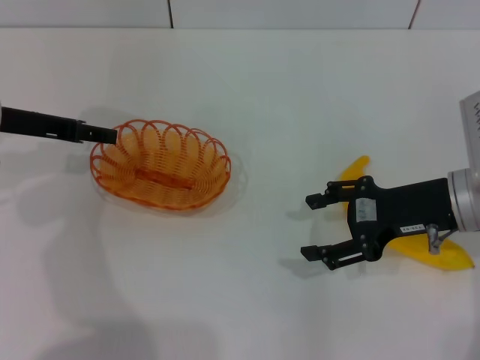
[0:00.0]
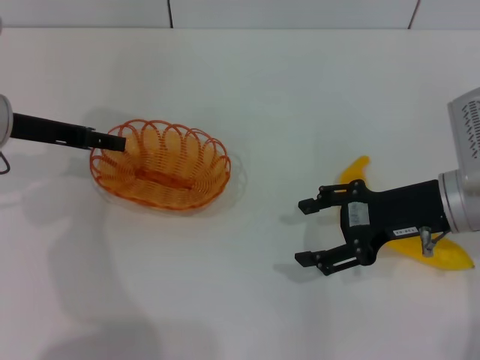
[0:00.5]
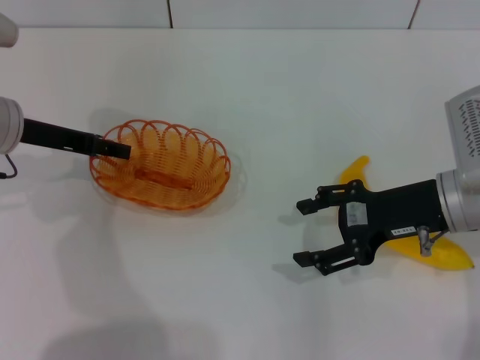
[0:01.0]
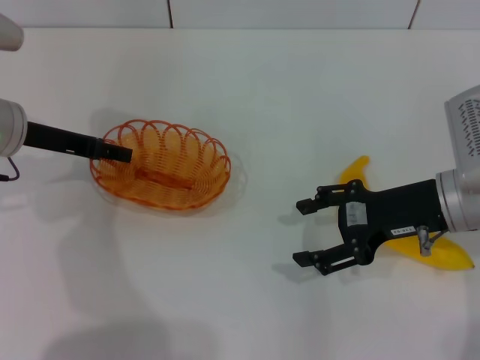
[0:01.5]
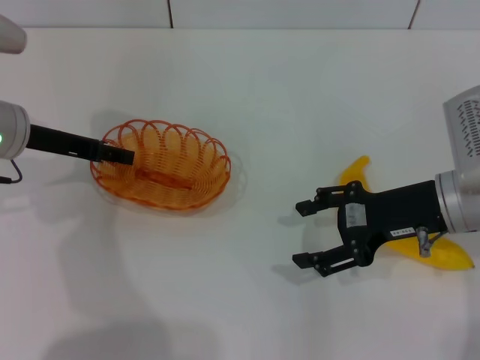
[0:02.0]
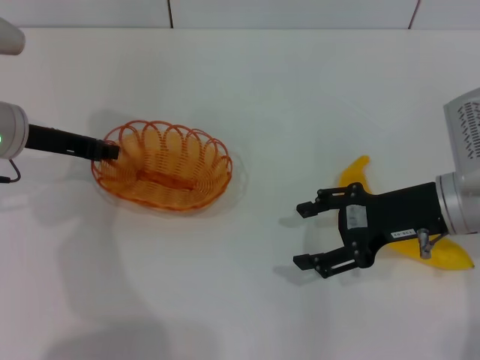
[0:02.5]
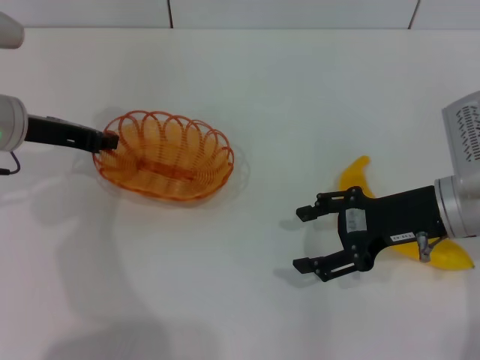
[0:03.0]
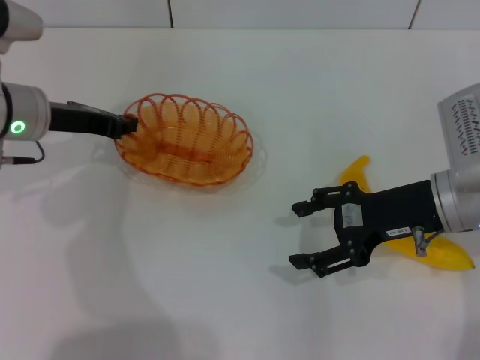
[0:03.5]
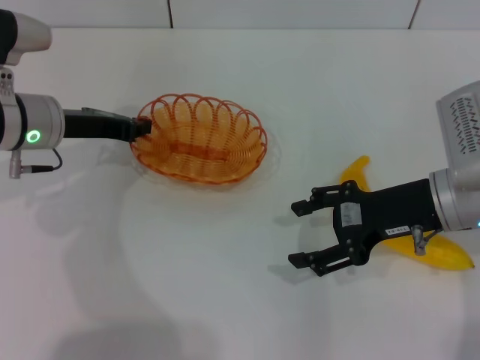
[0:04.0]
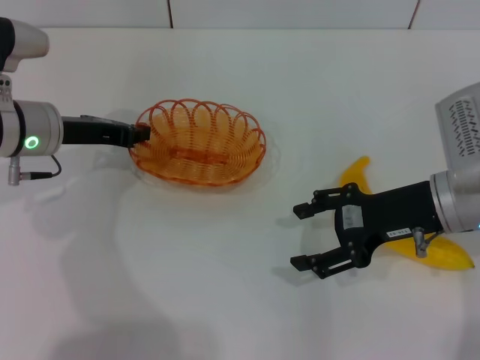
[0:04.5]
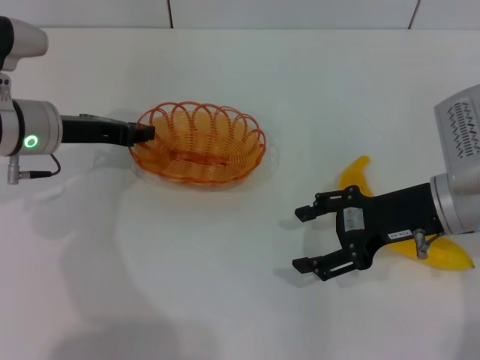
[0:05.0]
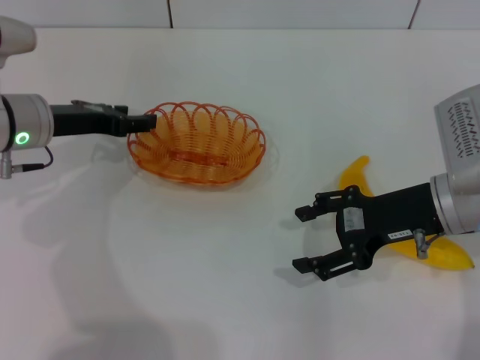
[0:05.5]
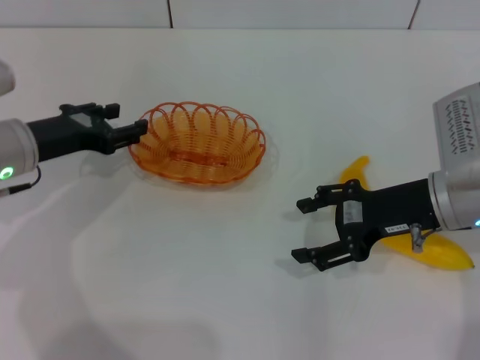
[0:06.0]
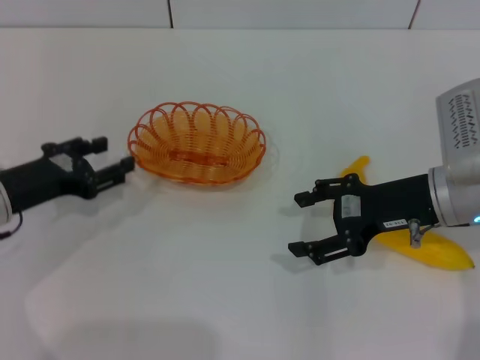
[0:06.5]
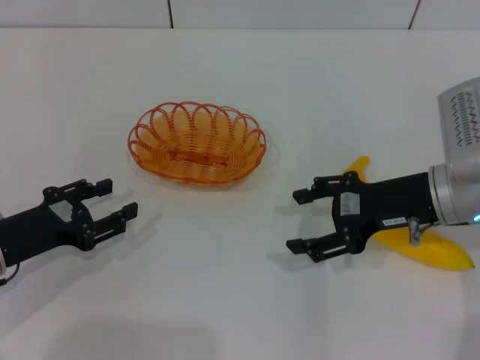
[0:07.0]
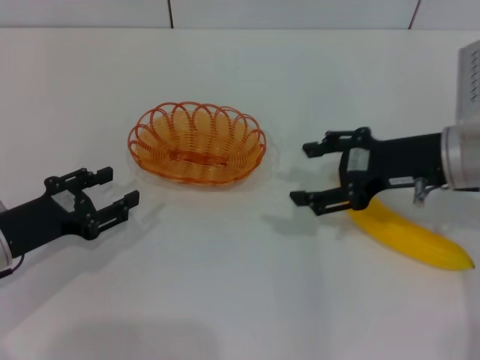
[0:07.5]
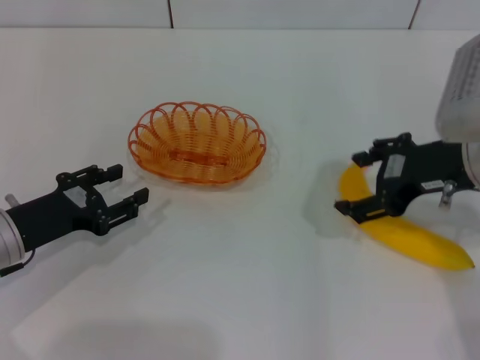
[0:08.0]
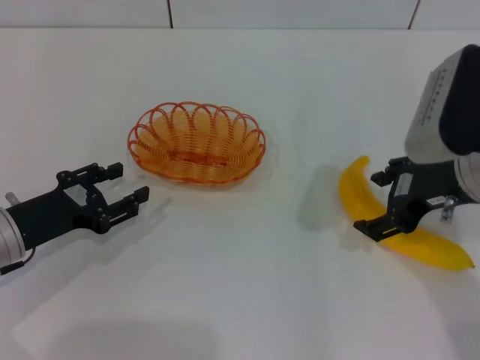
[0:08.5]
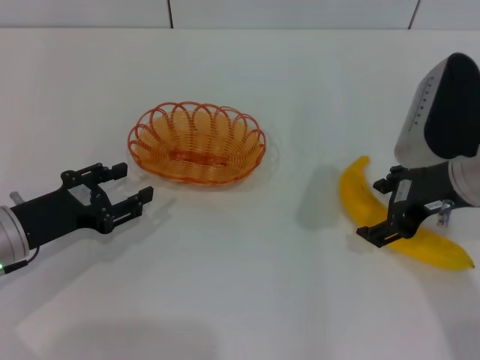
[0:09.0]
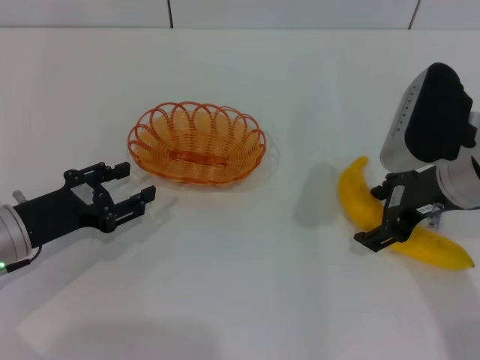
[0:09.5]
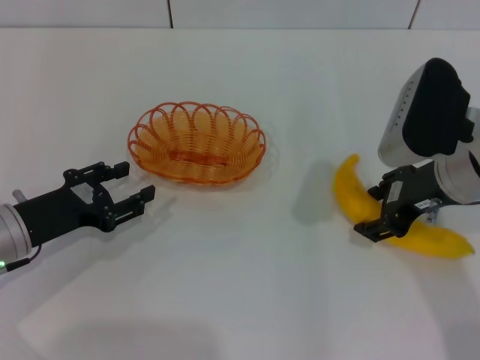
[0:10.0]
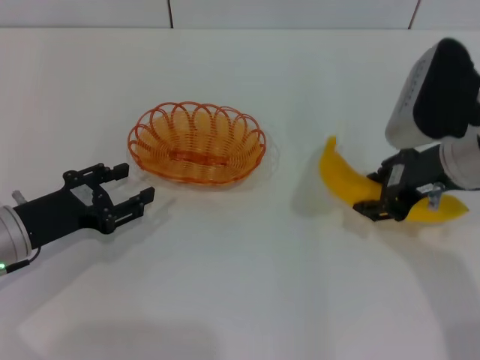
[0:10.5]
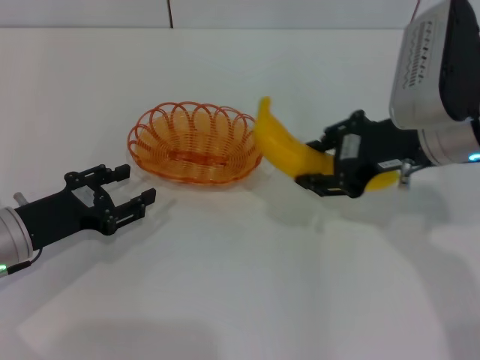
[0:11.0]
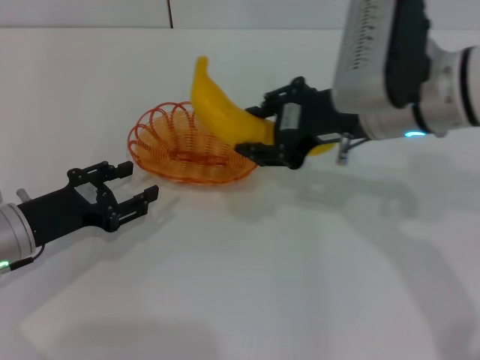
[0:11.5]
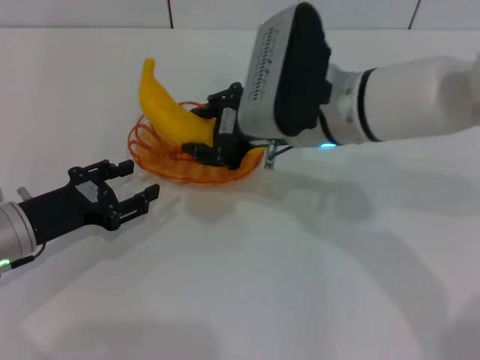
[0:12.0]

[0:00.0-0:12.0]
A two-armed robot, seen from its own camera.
Step, 0:00.0 to 0:05.5: Place the basket in the center of view with the left gripper.
Step, 0:06.0 to 0:10.5: Pick up the banana with the right gripper.
0:00.0 to 0:02.0: The grippers stay close to where they were, moving slightly.
0:02.0 to 0:04.0: The left gripper closes.
0:04.0 to 0:06.0: The left gripper opens up.
0:06.0 to 0:08.0: The right gripper heads upward, covering about 5 cm; the left gripper is displaced backward by about 10 cm.
0:08.0 to 0:10.0: The grippers make only small movements.
0:10.0 to 0:12.0: The right gripper moves to the left, roughly 15 cm, and closes up.

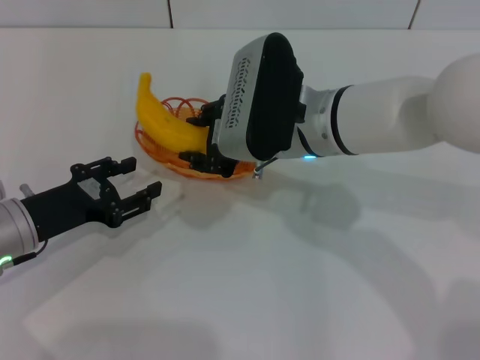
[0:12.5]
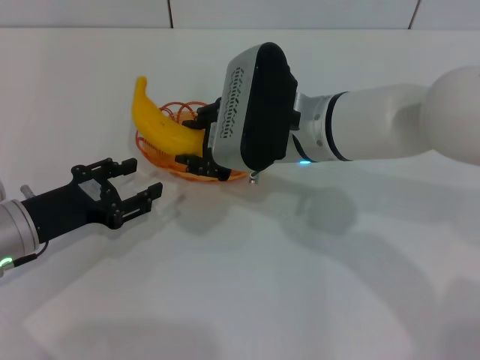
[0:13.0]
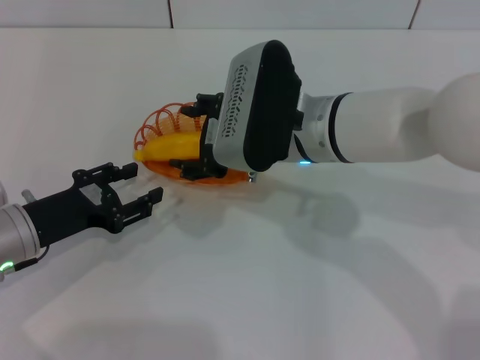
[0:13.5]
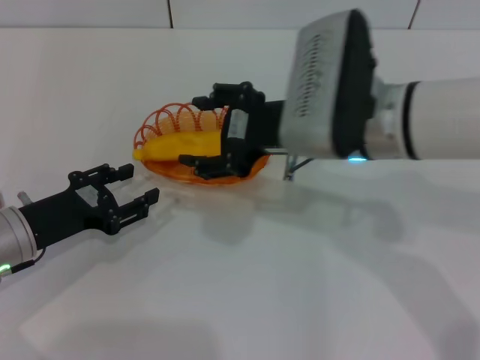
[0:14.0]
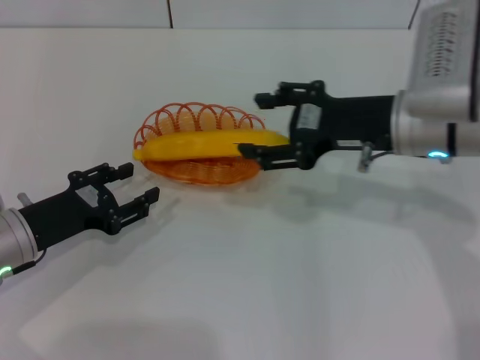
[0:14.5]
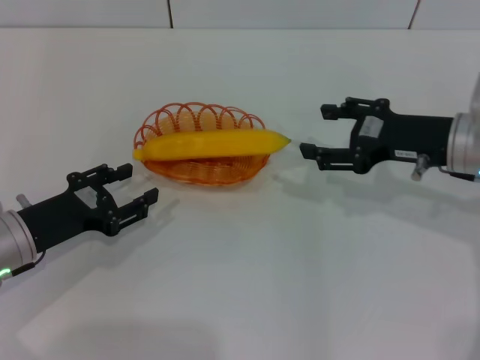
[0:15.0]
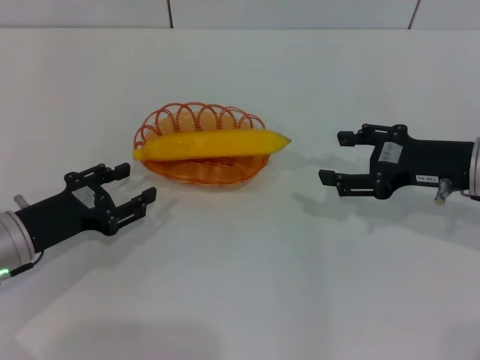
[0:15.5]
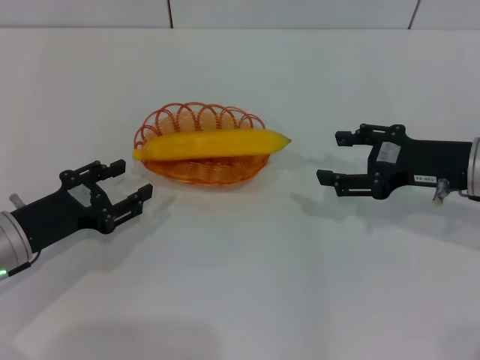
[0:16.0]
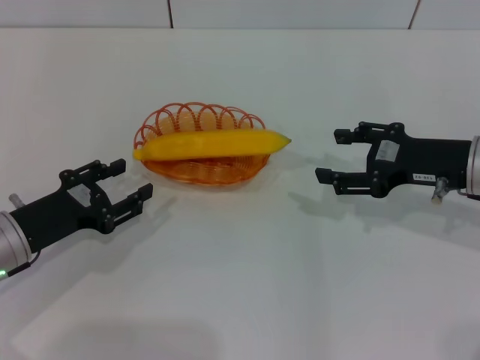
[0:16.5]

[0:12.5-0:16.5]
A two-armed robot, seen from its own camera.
0:12.5 to 0:14.5: The right gripper heads to the right, covering about 10 cm, and opens.
0:14.5 to 0:16.5: The right gripper moves to the right, some 10 cm.

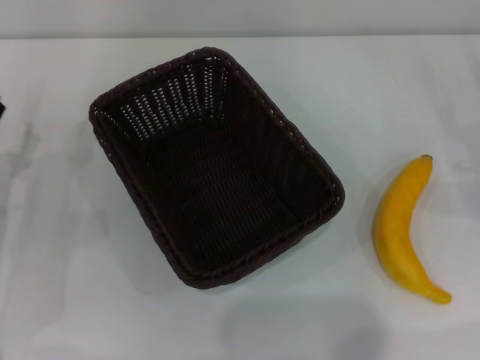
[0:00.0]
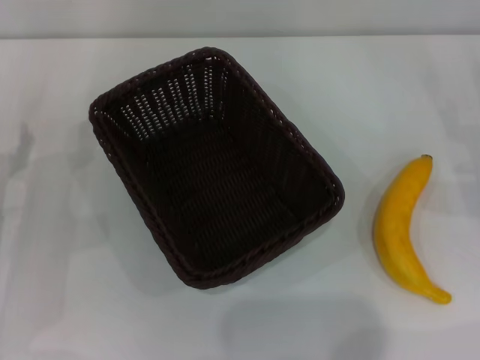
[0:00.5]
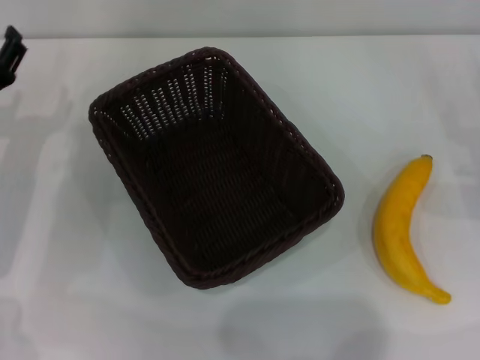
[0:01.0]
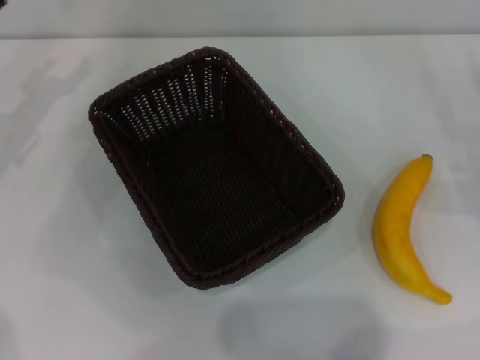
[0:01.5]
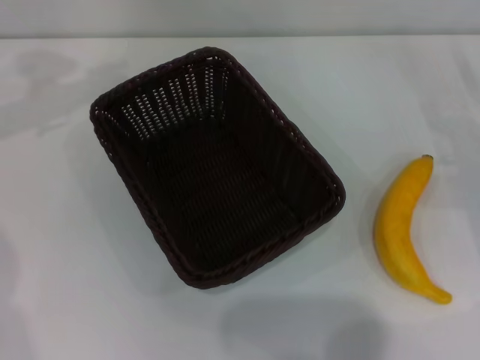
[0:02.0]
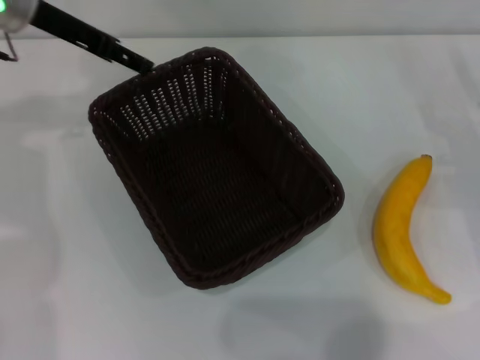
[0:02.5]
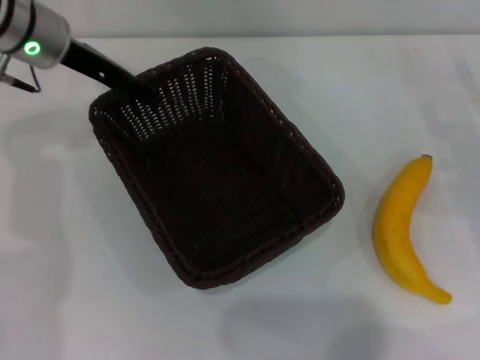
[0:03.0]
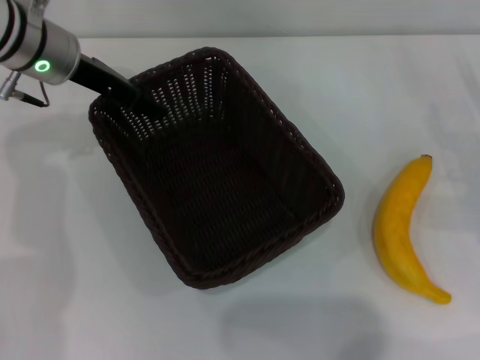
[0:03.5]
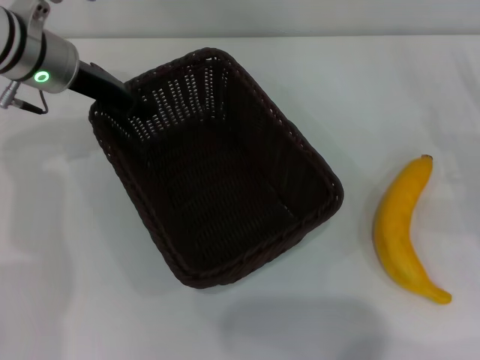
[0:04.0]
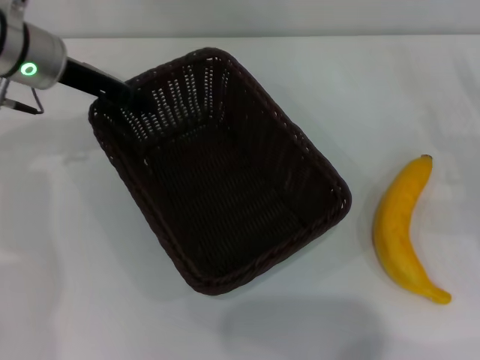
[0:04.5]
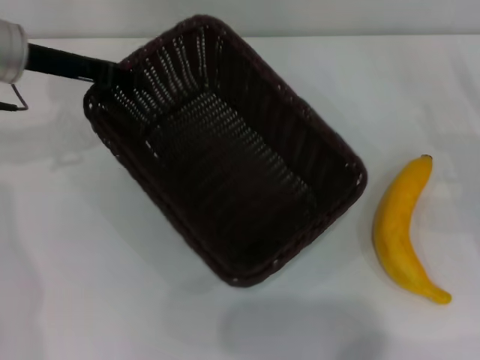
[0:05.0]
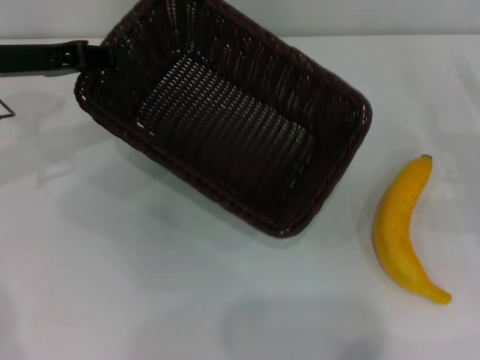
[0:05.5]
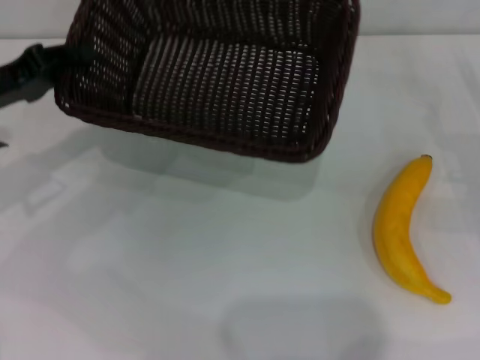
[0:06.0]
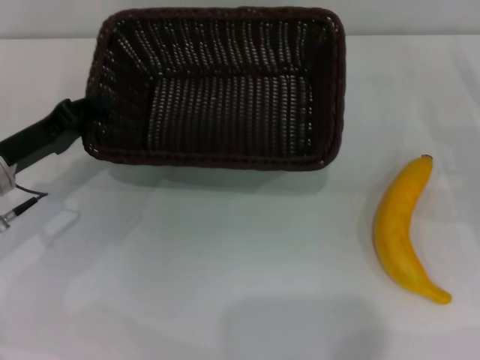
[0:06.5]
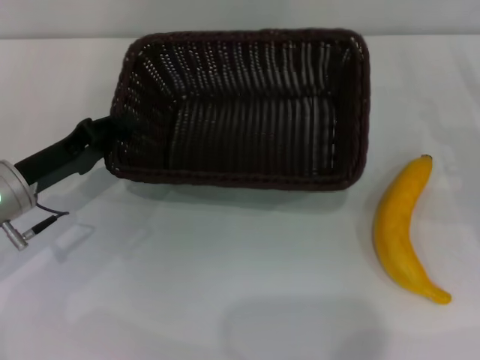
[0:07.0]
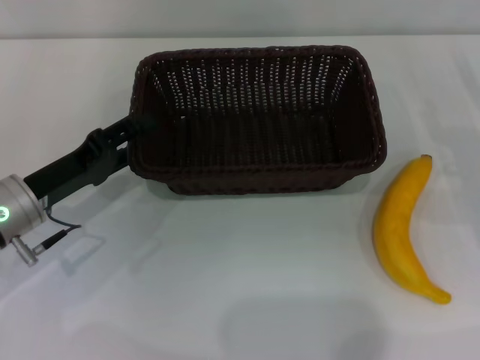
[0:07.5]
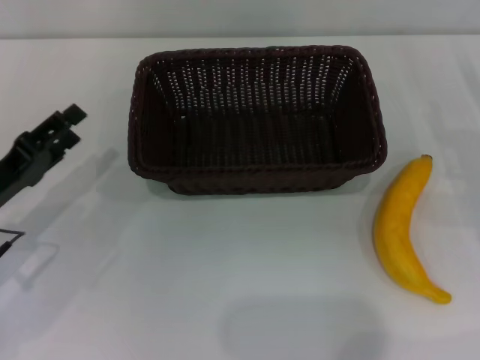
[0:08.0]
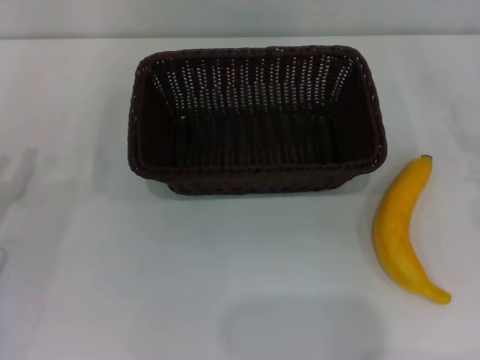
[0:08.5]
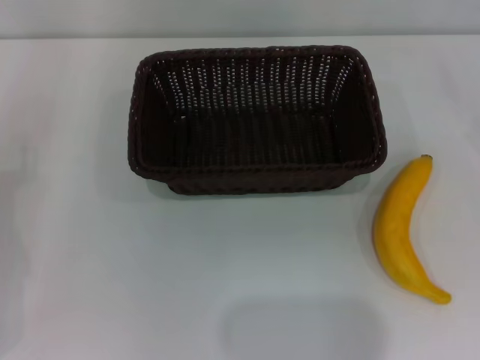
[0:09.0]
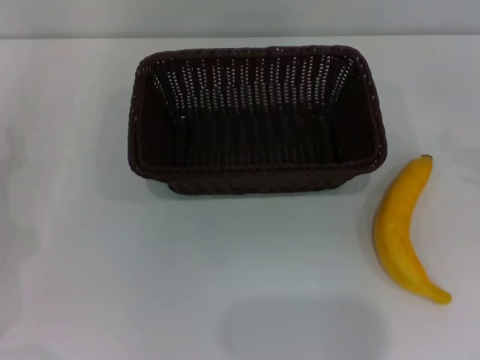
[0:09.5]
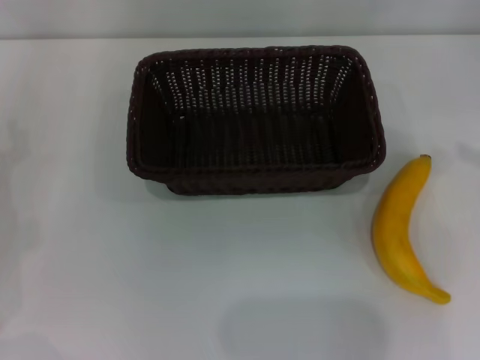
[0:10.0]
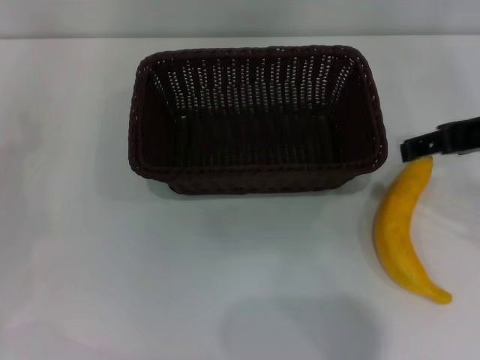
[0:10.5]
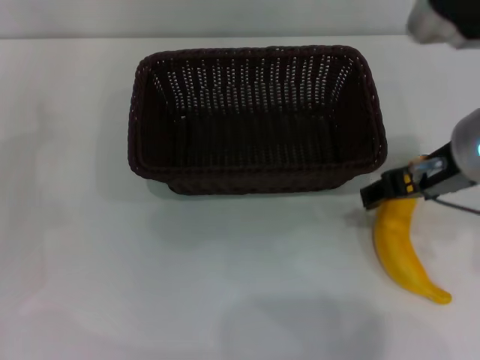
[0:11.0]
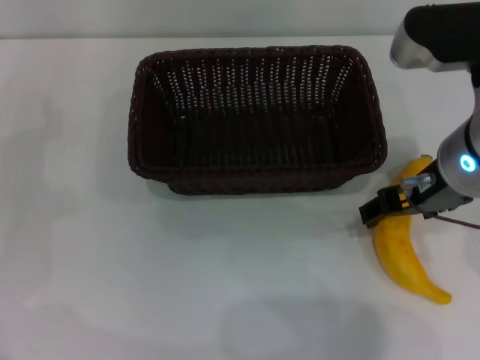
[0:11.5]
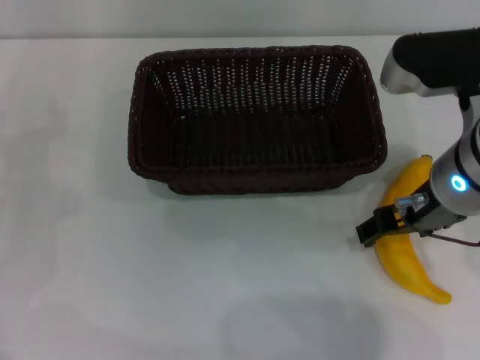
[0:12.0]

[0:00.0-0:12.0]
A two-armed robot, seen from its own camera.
Step, 0:00.0 to 0:04.5: Pick up the dark basket with the left gripper.
Step, 0:05.0 to 0:08.0: Place the dark basket in the center of view with the left gripper.
0:00.0 to 0:02.0: The left gripper heads upward and forward, covering roughly 25 cm.
0:02.0 to 0:04.0: The left gripper moves to the right and downward, roughly 10 cm, and closes its fingers.
0:04.0 to 0:06.0: The left gripper moves to the left and backward, some 15 cm, and closes up.
0:06.0 to 0:08.0: The left gripper shifts roughly 10 cm backward and downward, and opens its fingers.
0:08.0 to 0:10.0: The left gripper heads to the left, covering roughly 10 cm.
0:10.0 to 0:12.0: The right gripper moves to the left, roughly 20 cm.
